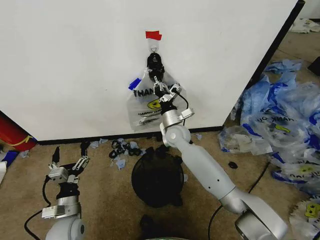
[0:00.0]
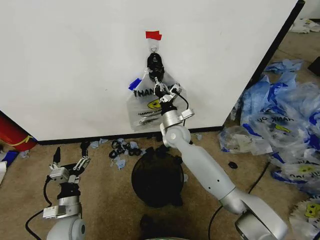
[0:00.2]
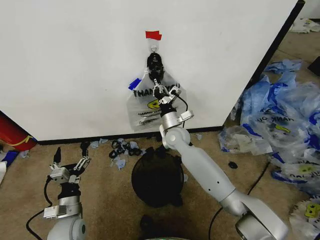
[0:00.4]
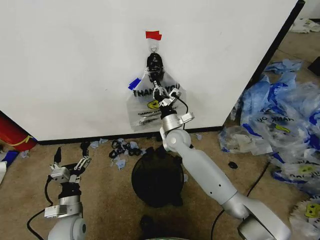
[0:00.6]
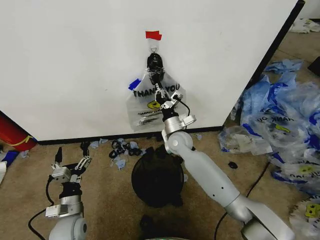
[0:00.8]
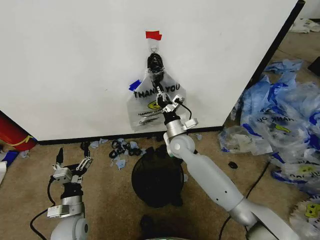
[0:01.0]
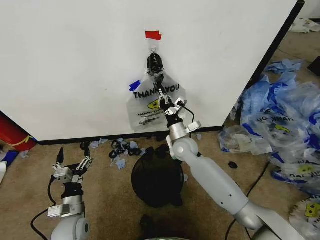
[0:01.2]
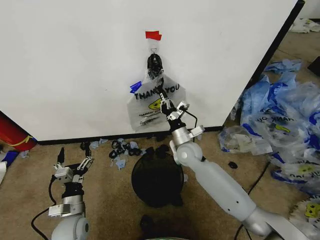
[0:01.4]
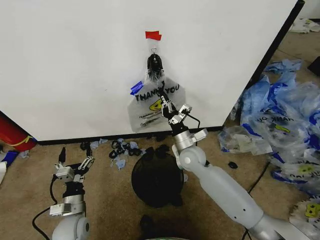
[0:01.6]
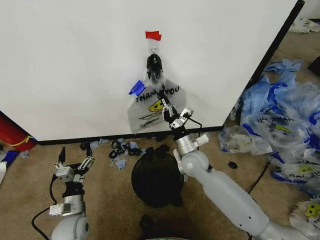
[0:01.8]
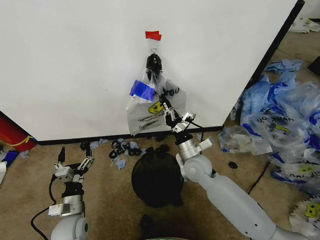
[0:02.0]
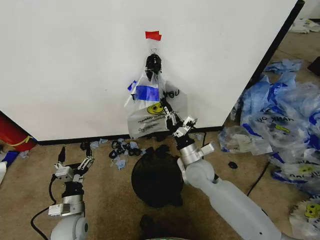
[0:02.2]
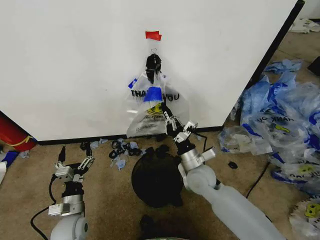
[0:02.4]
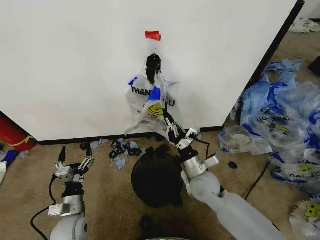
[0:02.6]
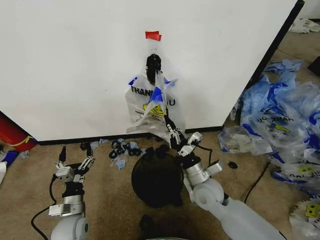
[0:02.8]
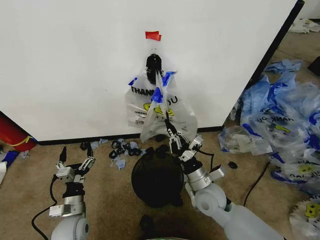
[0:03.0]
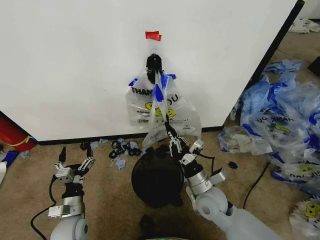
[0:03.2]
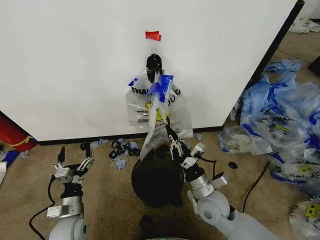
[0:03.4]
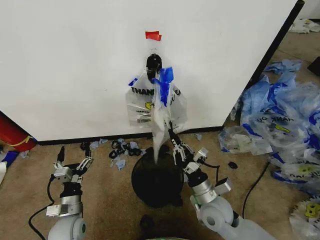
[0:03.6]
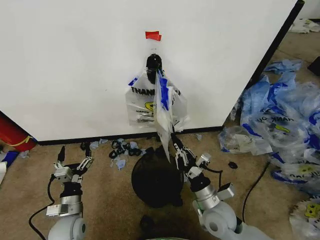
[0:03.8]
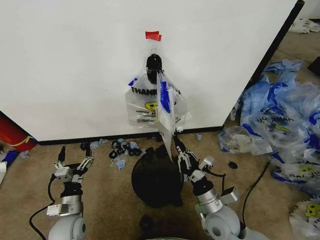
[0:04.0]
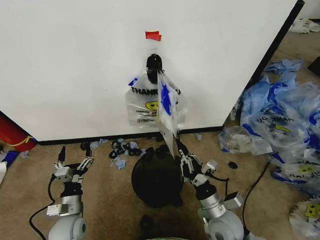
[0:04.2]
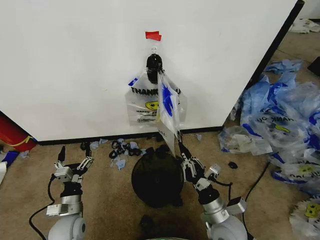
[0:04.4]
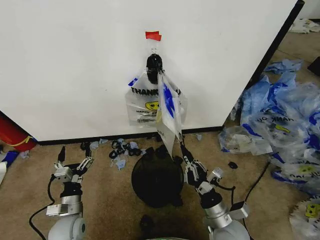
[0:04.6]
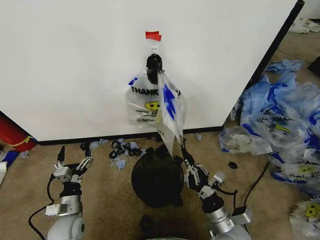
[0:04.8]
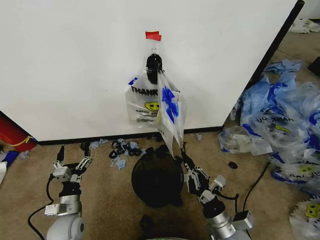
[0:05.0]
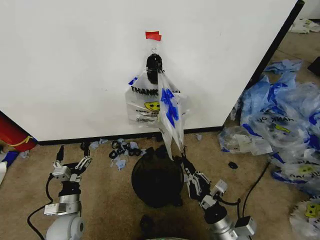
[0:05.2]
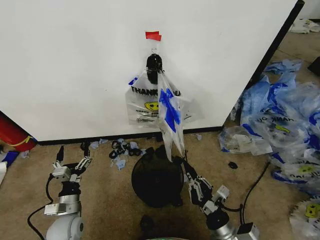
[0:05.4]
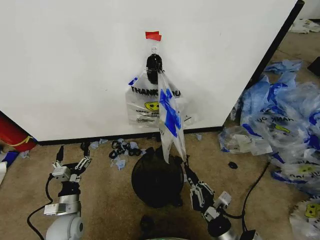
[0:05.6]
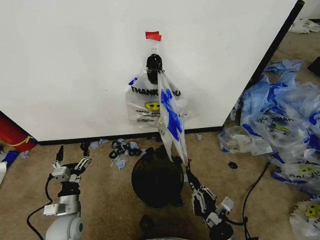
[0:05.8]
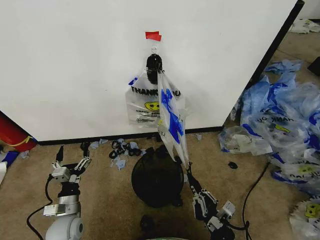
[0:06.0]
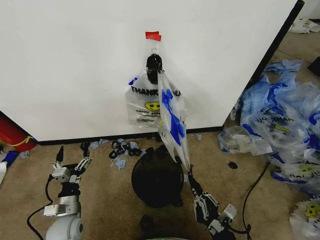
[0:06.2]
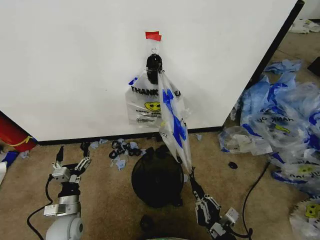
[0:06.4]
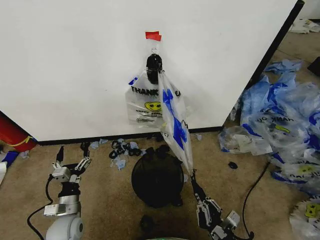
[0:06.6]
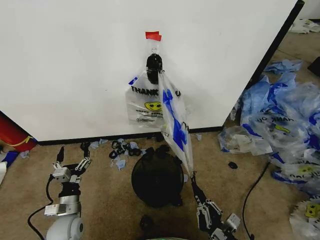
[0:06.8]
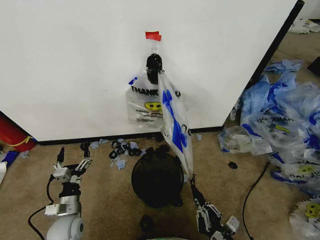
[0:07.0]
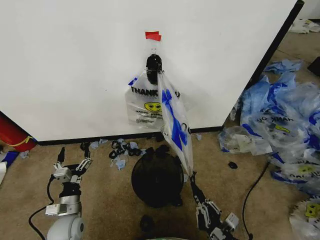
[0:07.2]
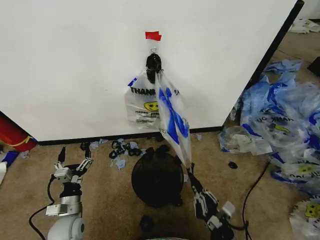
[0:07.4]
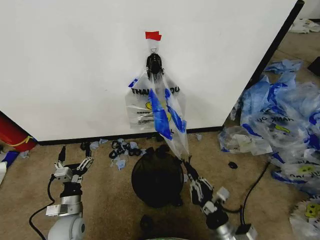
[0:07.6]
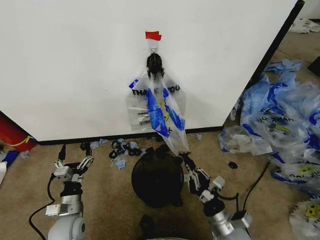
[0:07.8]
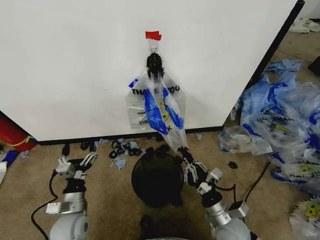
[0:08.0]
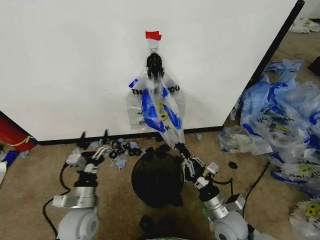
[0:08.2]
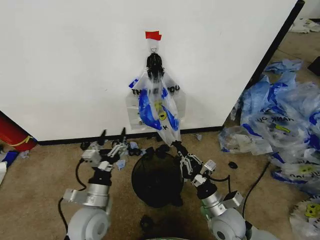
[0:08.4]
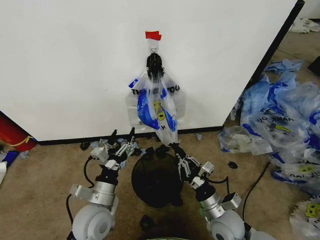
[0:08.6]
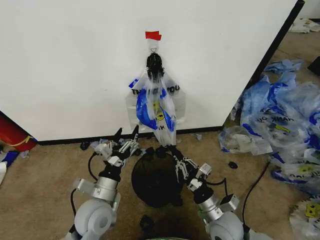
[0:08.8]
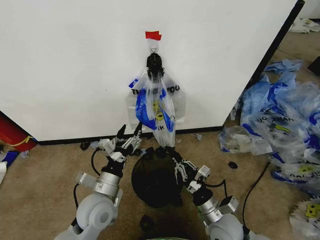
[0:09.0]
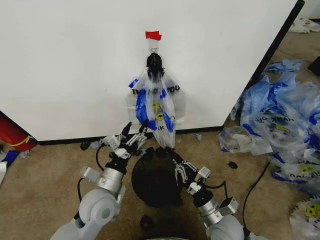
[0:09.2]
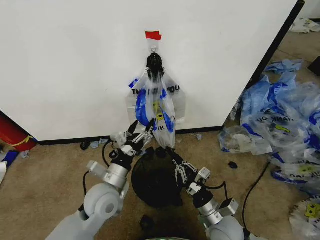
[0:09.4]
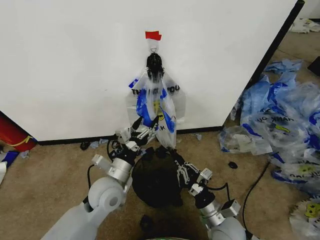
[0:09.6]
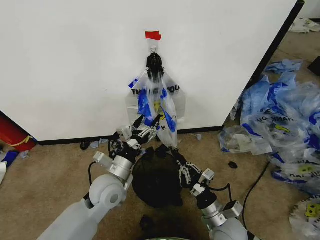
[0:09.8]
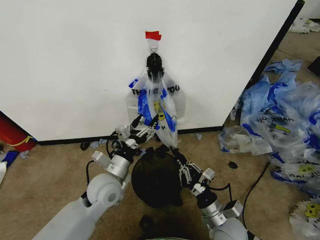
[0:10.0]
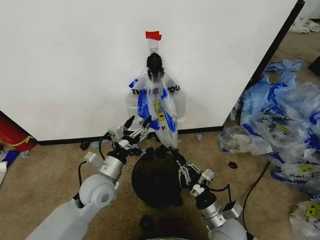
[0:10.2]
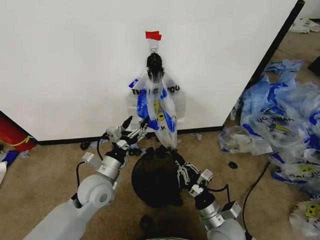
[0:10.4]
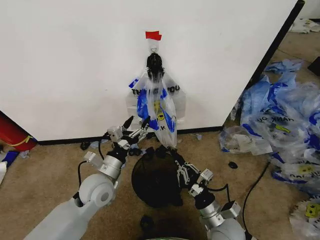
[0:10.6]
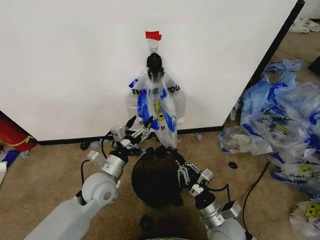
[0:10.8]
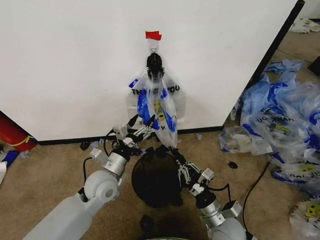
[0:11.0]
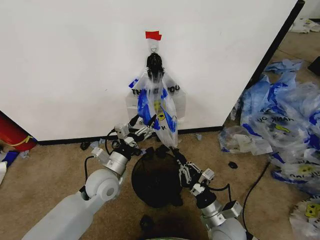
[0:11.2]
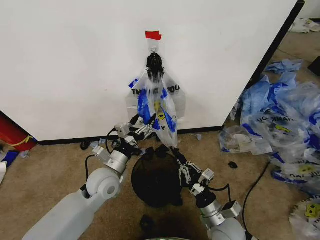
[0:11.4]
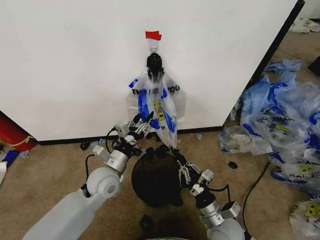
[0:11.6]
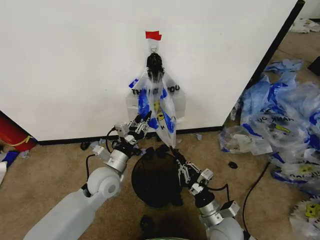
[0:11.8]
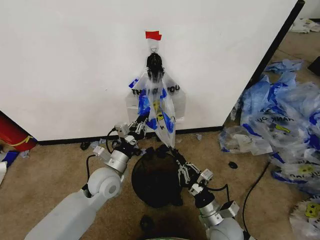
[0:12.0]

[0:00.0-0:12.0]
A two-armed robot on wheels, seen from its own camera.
Task of the whole recording: Pick up the garbage bag from the wall and place it over the trash bin.
0:00.0 to 0:01.6: The right gripper shifts roughly 10 cm backward.
0:01.6 to 0:03.0: The right gripper is displaced backward by roughly 15 cm.
0:03.0 to 0:04.4: The right gripper travels backward by some 10 cm.
0:04.4 to 0:06.0: The right gripper is displaced backward by approximately 10 cm.
0:06.0 to 0:07.6: The grippers make only small movements.
0:07.6 to 0:09.0: The left gripper moves to the right and upward, approximately 15 cm; the right gripper heads forward, covering roughly 5 cm.
0:09.0 to 0:10.4: The left gripper heads forward, covering roughly 5 cm.
0:10.4 to 0:12.0: The left gripper closes.

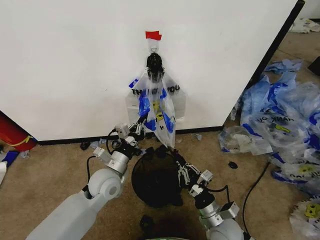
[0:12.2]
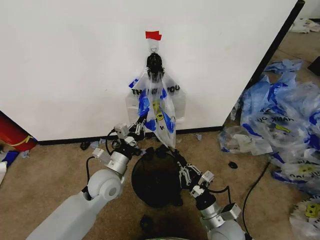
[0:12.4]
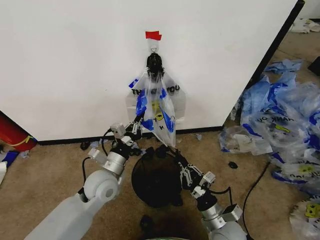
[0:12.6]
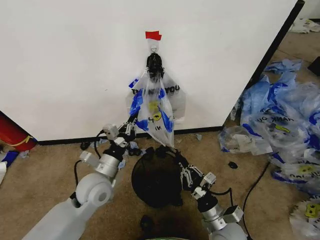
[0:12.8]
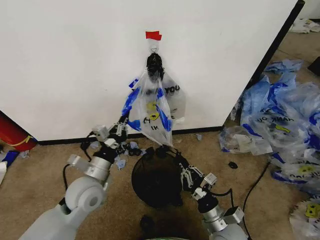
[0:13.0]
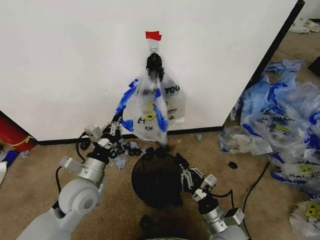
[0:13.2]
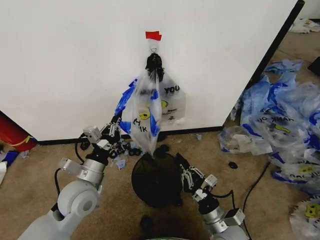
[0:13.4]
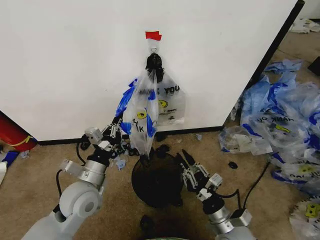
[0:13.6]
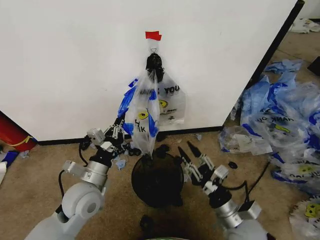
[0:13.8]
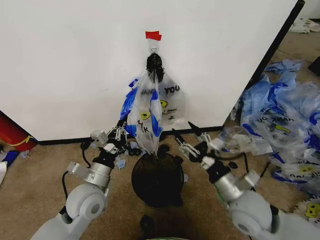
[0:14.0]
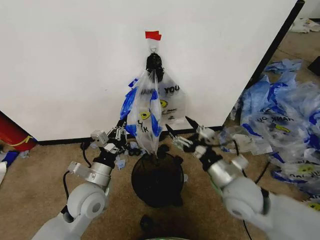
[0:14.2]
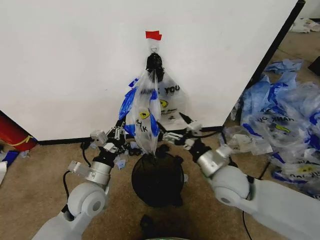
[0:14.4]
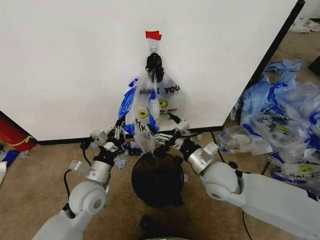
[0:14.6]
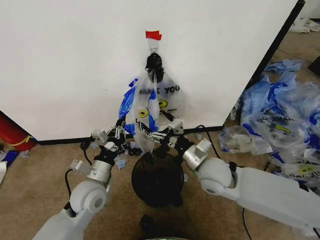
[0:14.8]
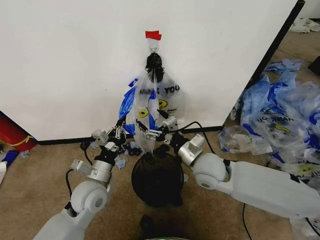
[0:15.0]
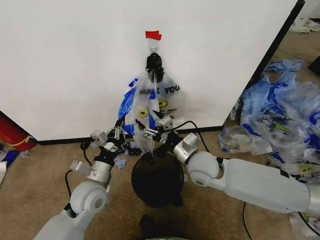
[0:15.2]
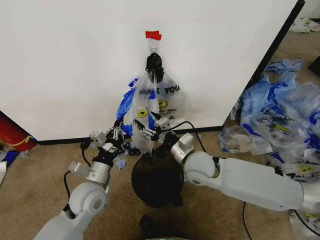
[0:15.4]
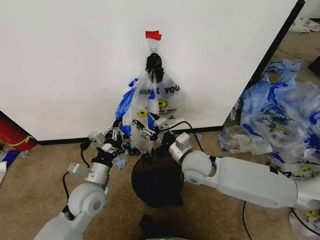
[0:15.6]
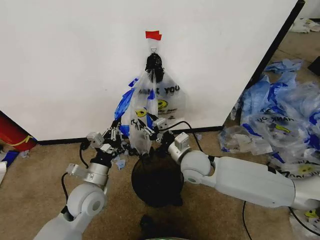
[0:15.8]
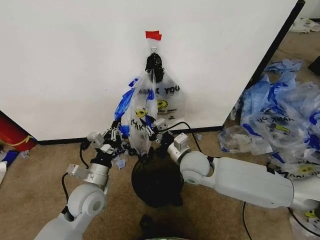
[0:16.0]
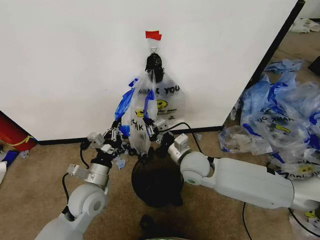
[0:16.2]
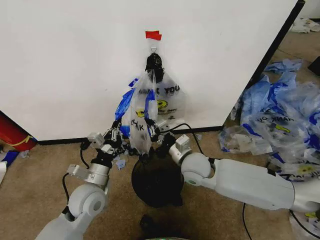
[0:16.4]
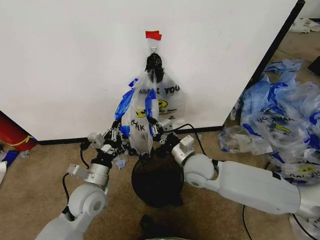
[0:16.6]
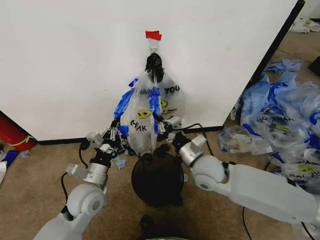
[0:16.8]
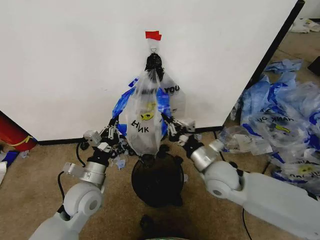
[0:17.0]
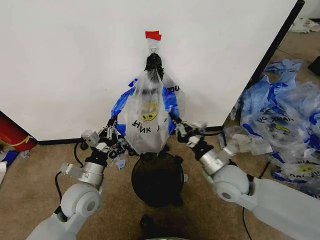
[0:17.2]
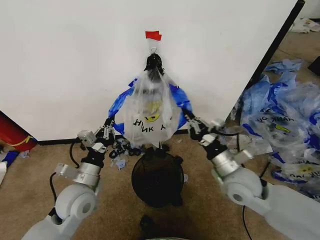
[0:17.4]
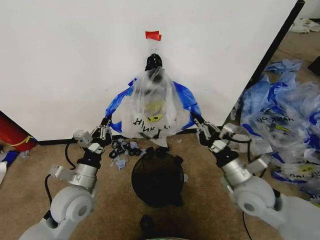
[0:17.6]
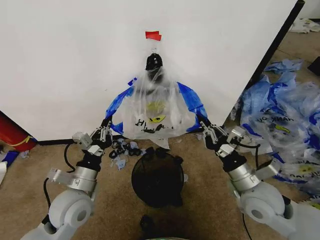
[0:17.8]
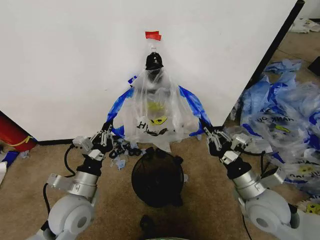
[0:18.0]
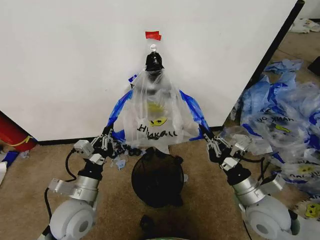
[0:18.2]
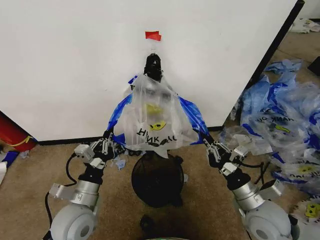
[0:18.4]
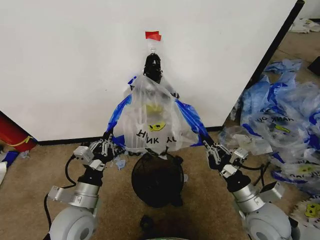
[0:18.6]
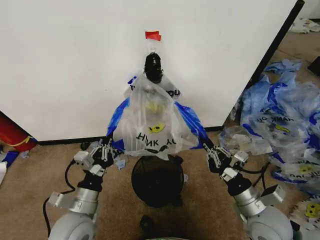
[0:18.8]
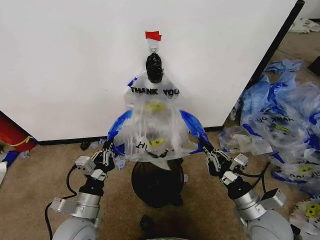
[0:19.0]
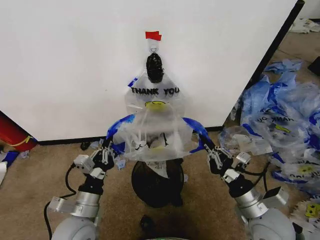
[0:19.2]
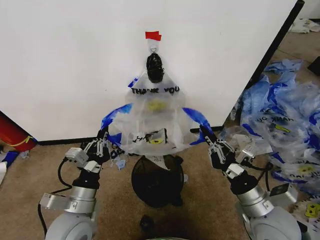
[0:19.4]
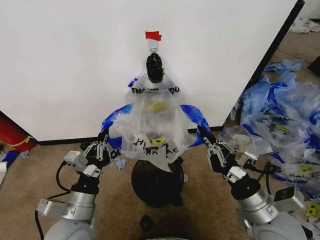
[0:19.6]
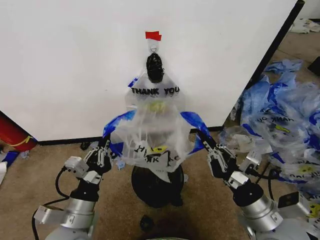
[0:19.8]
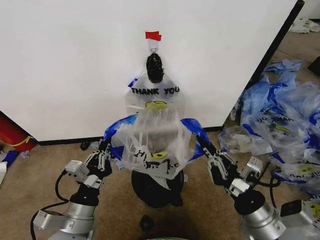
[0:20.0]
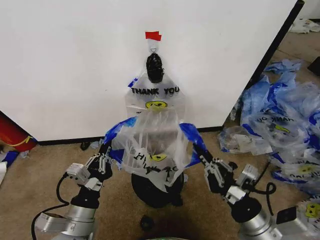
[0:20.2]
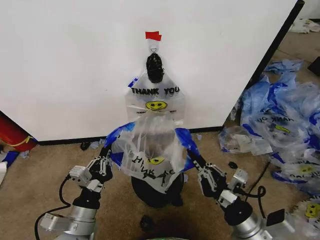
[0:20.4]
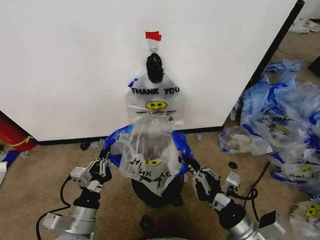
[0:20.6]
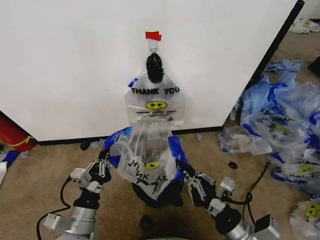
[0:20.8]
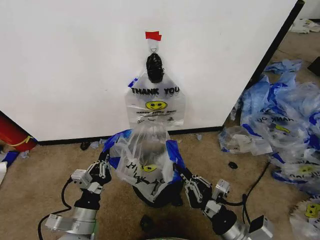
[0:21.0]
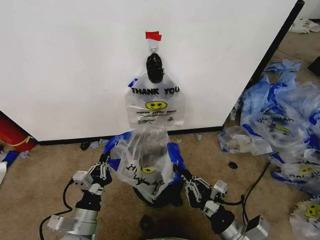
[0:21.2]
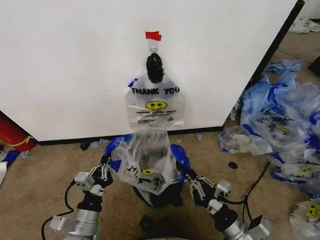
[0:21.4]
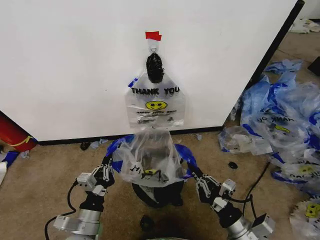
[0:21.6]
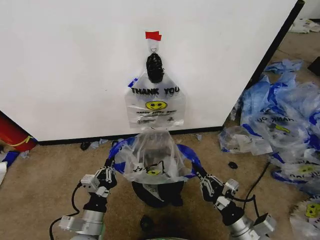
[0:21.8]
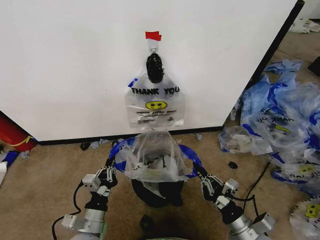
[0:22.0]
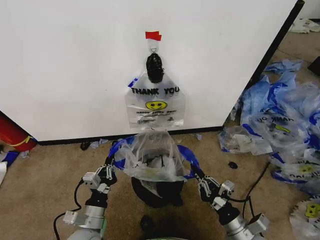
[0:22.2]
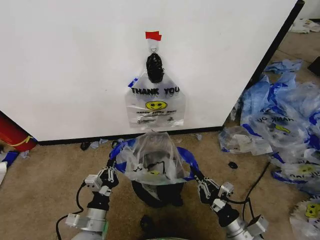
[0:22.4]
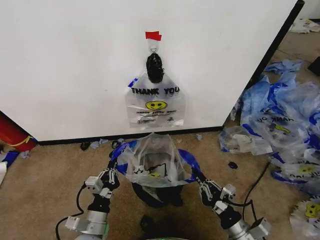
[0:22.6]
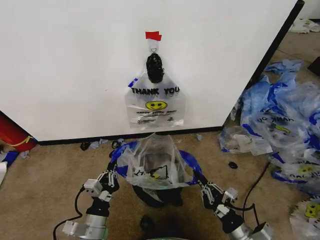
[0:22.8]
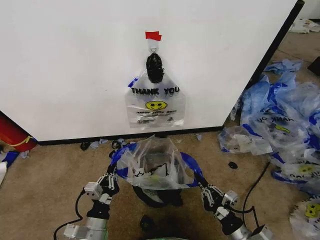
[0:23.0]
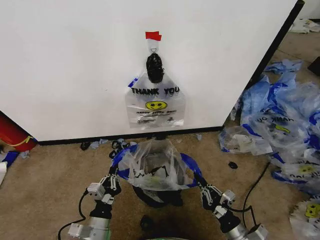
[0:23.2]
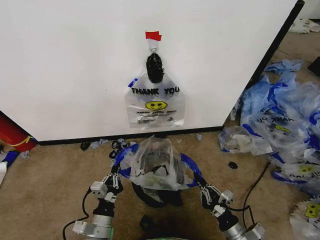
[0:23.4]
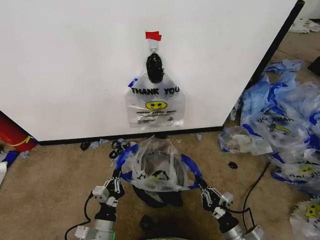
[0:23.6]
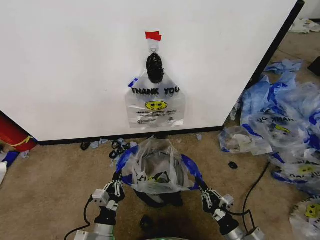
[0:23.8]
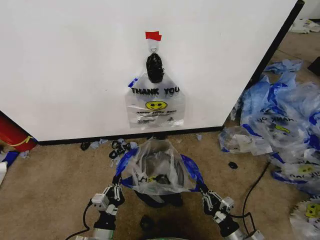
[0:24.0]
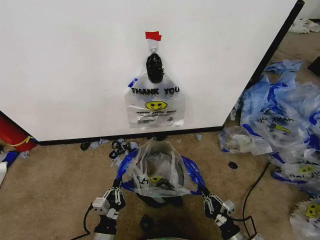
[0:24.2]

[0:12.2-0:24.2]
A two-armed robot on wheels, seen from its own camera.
Task of the whole recording: Pick up the garbage bag from the wall and place it over the trash bin.
0:12.2 to 0:13.8: The right gripper goes about 5 cm upward, and opens. Meanwhile the left gripper heads backward, covering some 5 cm.
0:13.8 to 0:15.2: The right gripper moves forward, to the left and upward, approximately 20 cm, and opens its fingers.
0:15.2 to 0:16.6: The right gripper closes its fingers.
0:16.6 to 0:18.2: The right gripper heads to the right and backward, covering about 20 cm, while the left gripper shifts about 5 cm backward.
0:18.2 to 0:19.8: Both grippers travel together backward, some 5 cm.
0:19.8 to 0:21.2: The grippers both shift downward by approximately 5 cm.
0:21.2 to 0:22.6: The grippers both shift downward by some 5 cm.
0:22.6 to 0:24.2: The right gripper moves downward, approximately 10 cm. The left gripper changes place by roughly 5 cm.
